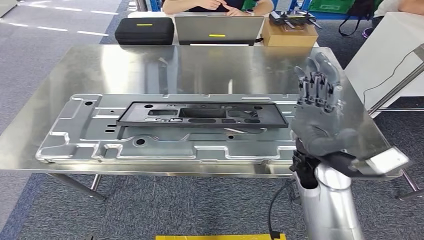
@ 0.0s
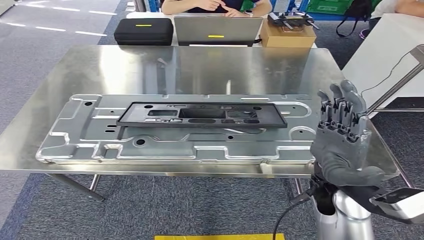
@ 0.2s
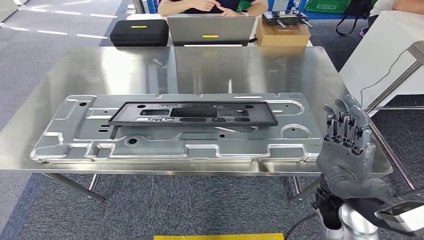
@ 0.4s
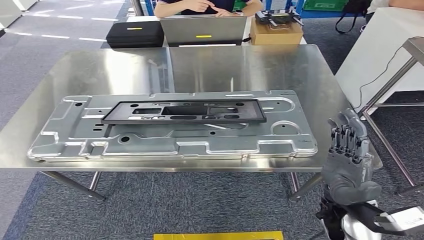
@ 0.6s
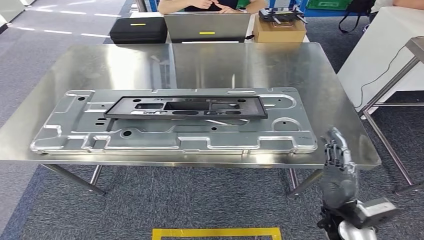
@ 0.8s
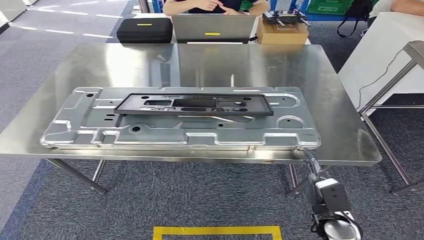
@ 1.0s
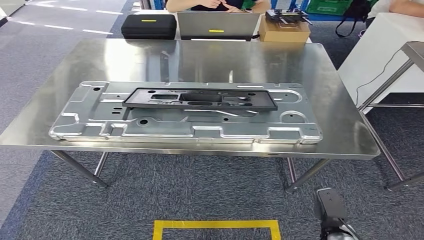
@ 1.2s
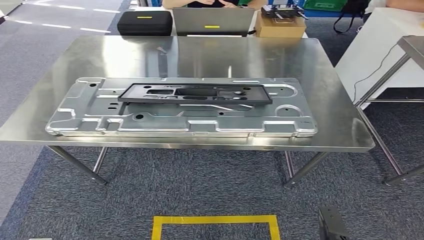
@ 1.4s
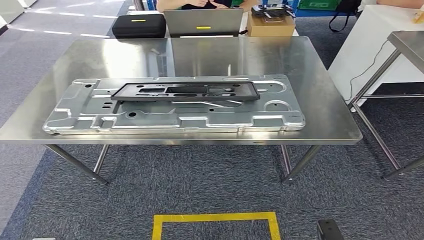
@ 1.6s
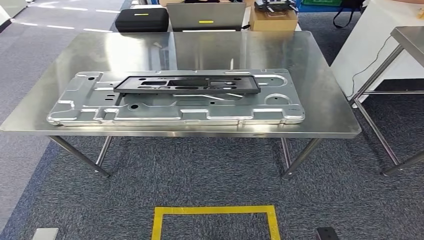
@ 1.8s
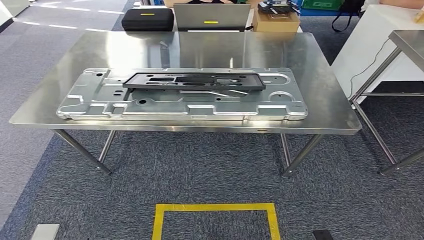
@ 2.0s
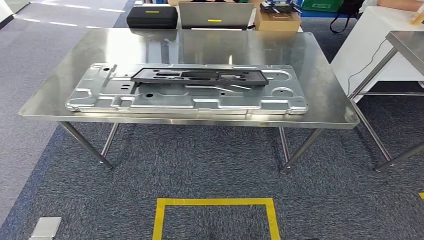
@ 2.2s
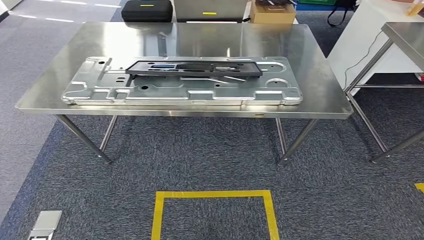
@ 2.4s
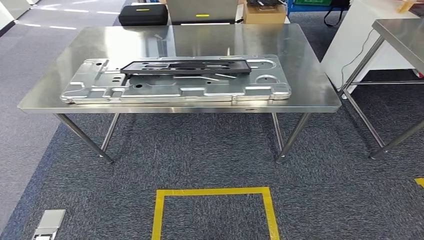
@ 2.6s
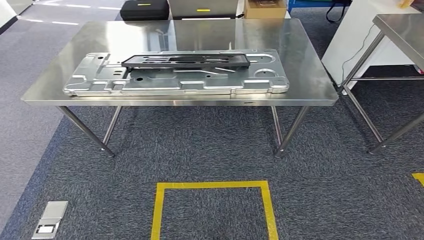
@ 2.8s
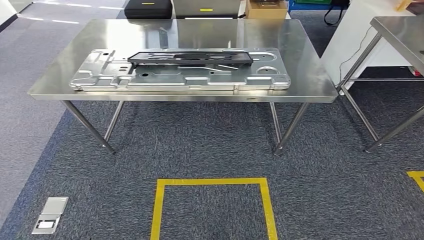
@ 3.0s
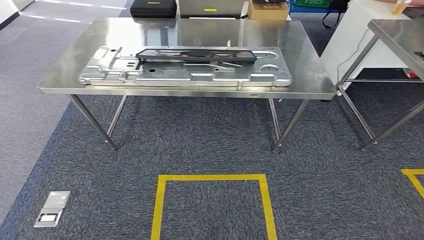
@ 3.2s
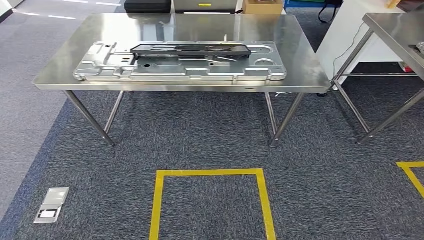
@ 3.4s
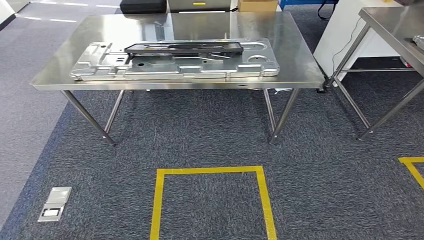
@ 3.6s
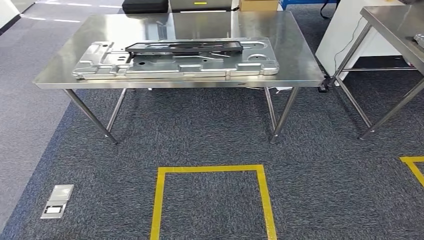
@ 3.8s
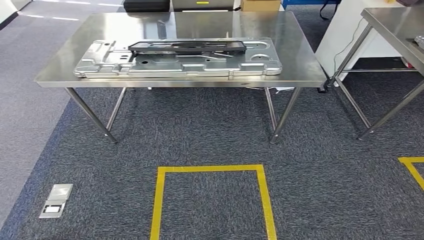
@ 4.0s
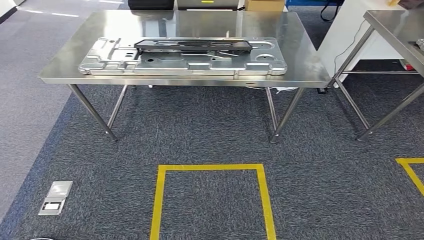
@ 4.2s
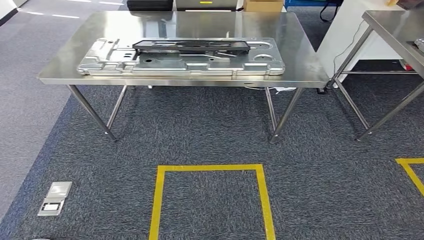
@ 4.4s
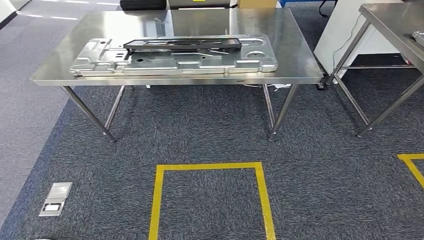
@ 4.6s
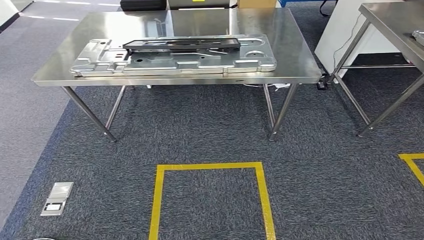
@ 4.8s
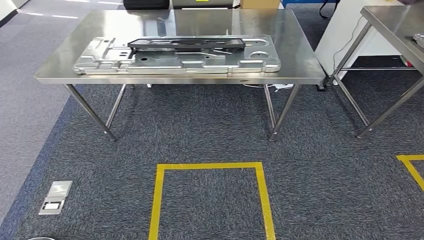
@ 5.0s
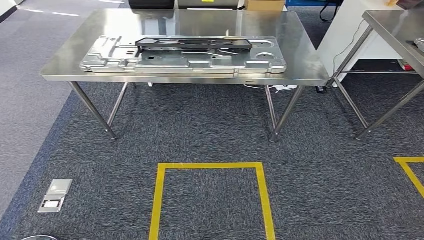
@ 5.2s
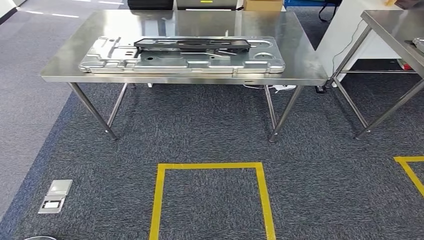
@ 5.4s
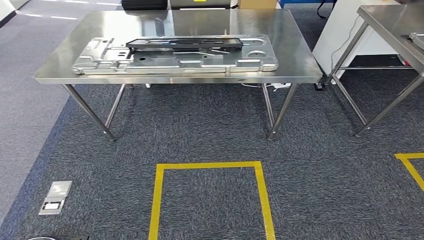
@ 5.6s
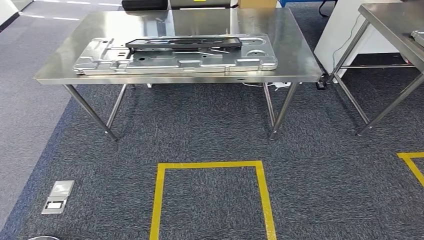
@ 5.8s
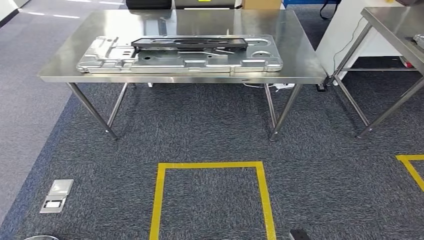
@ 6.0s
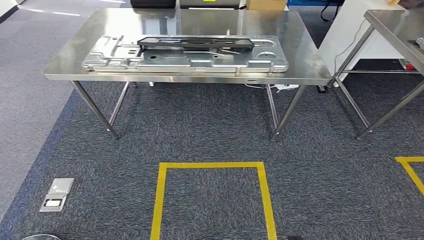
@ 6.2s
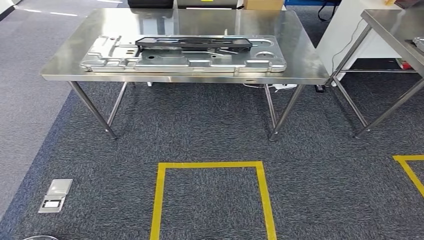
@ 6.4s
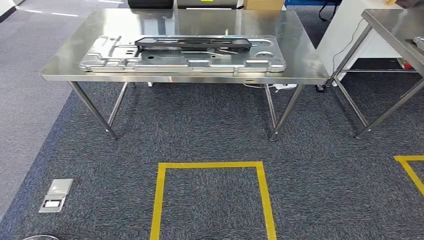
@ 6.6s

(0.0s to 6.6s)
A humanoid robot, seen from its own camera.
Step, 1.0s - 6.6s: Return to the initial position at the workbench.
5.0s - 6.6s: The left hand goes forward and backward, about 10 cm each way, reversing 2 times. The right hand swings forward and backward, roughly 10 cm each way, with 2 reversals.
